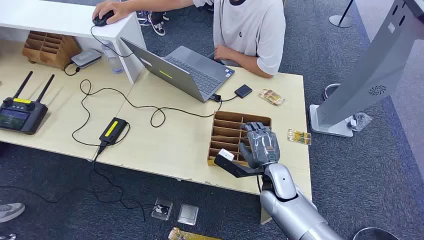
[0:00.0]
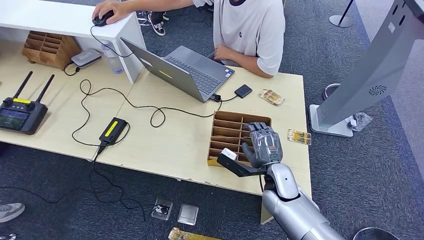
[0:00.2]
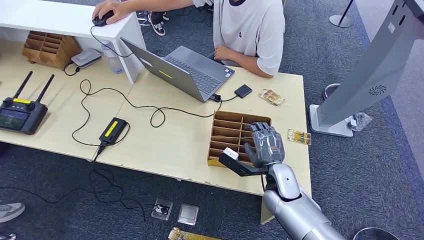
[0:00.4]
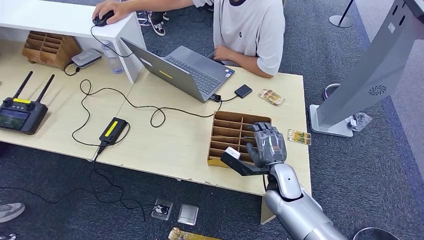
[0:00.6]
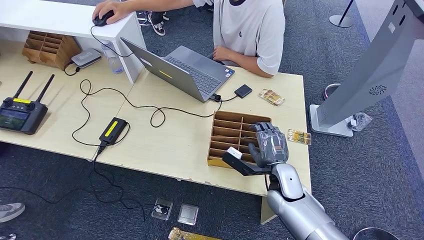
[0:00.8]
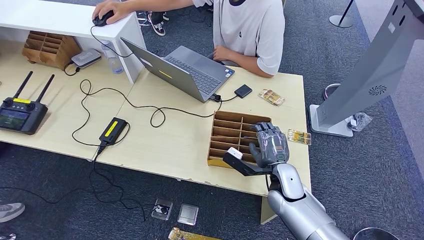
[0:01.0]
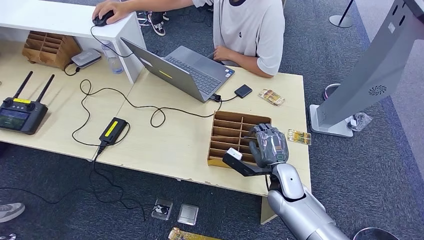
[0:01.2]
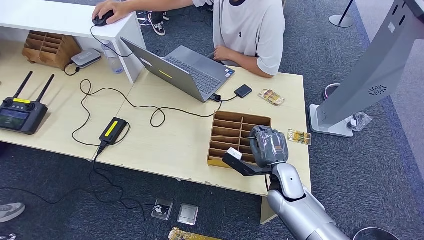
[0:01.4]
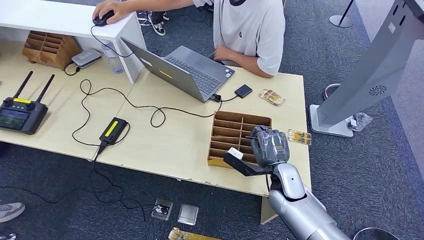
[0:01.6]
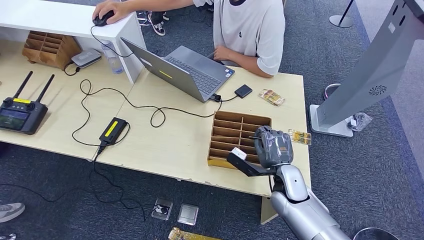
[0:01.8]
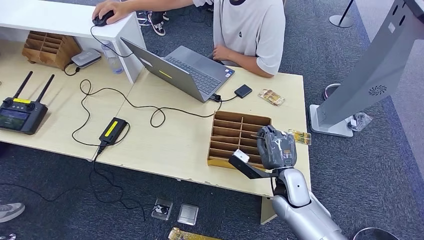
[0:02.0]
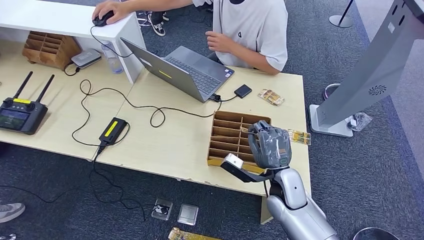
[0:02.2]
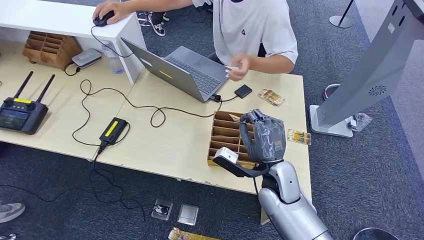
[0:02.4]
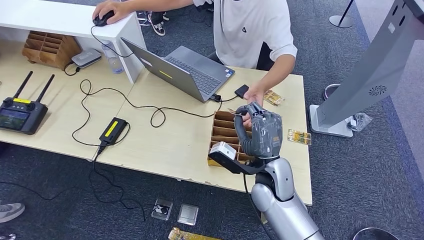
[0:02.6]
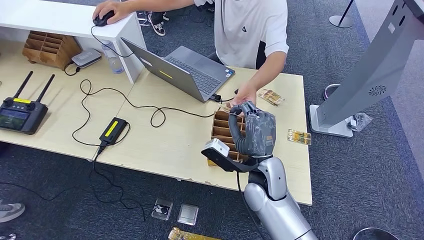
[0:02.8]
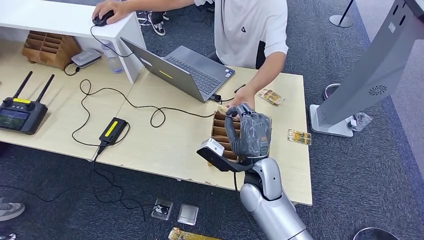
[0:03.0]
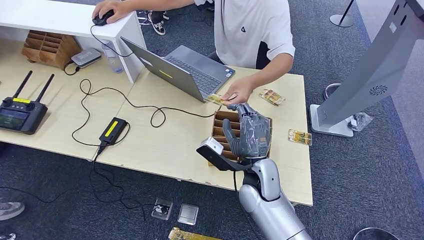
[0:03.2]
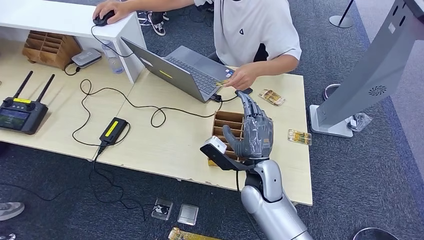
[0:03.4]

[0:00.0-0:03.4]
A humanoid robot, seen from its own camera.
Step, 0:00.0 to 0:02.0: Pick up the room card from the card holder.
Step, 0:02.4 to 0:03.4: Hand the room card to the target.
0:01.6 to 0:03.4: The right hand travels to the left and upward by about 10 cm.
